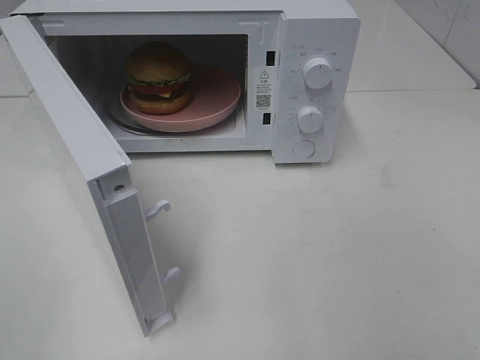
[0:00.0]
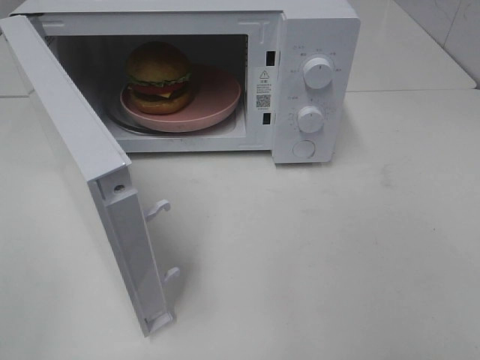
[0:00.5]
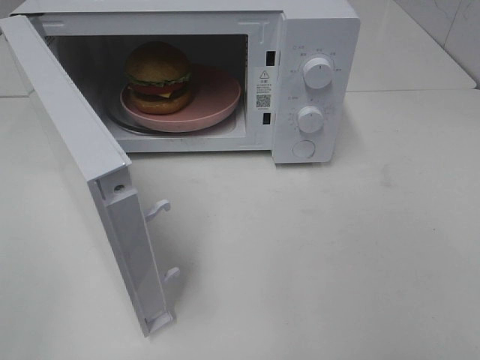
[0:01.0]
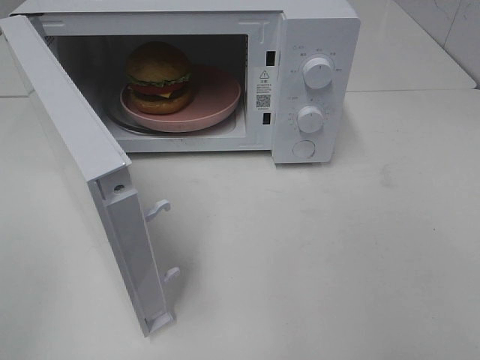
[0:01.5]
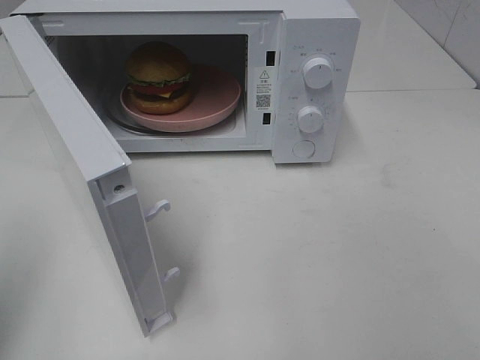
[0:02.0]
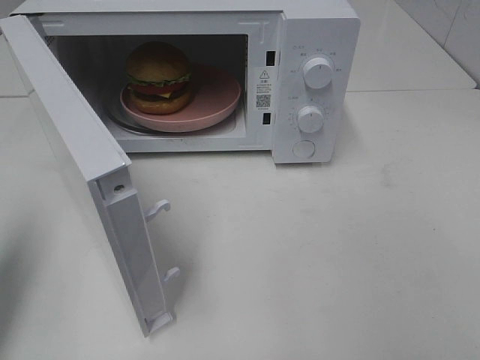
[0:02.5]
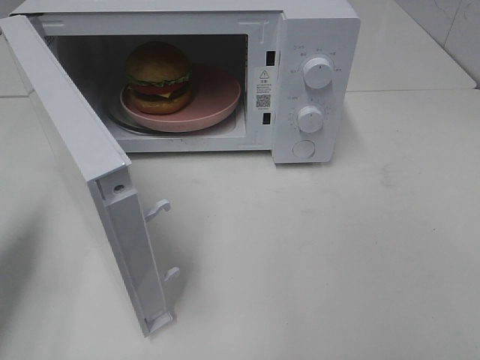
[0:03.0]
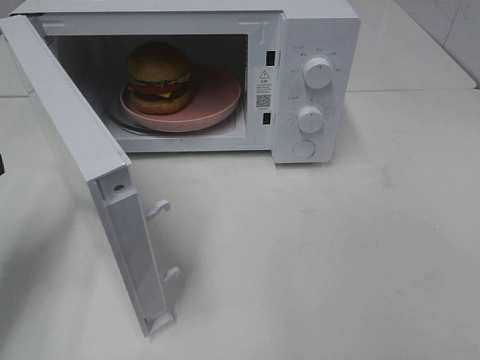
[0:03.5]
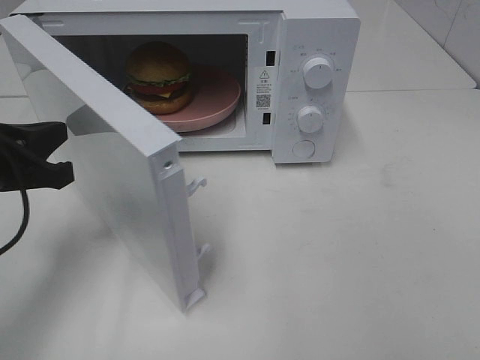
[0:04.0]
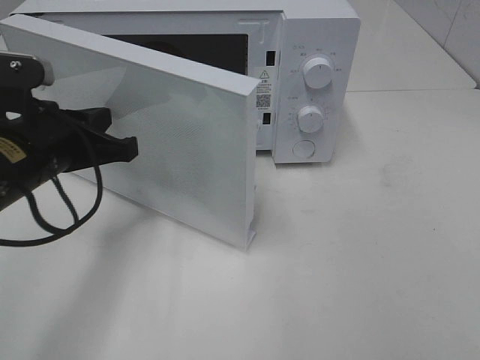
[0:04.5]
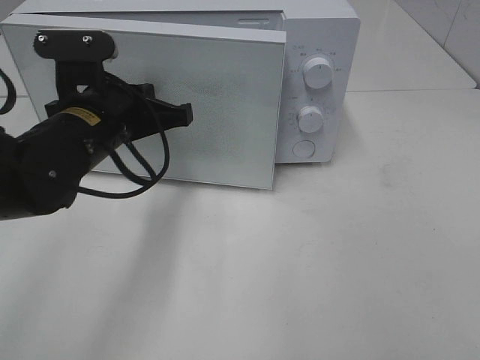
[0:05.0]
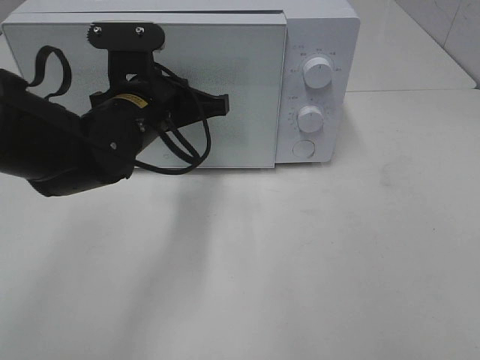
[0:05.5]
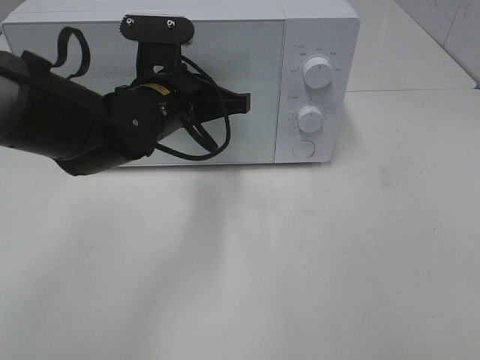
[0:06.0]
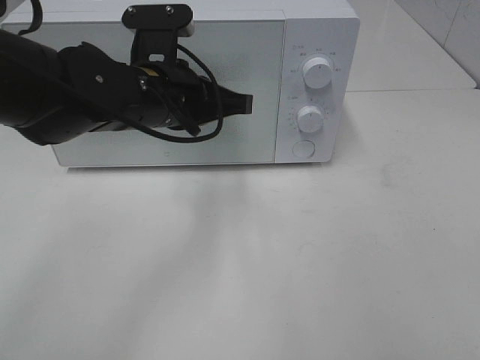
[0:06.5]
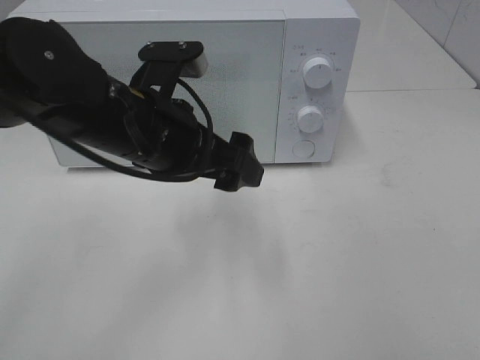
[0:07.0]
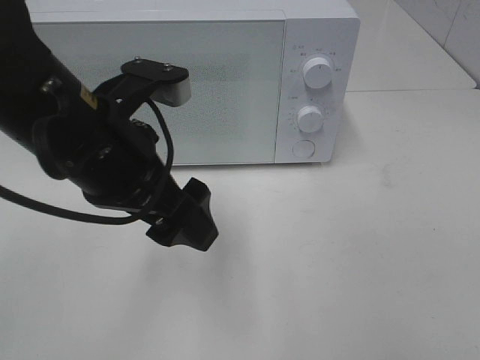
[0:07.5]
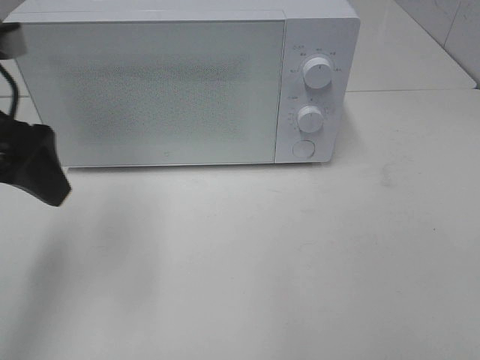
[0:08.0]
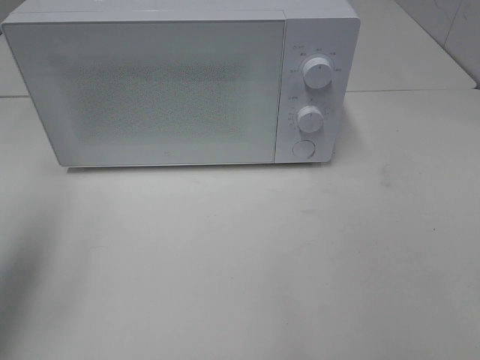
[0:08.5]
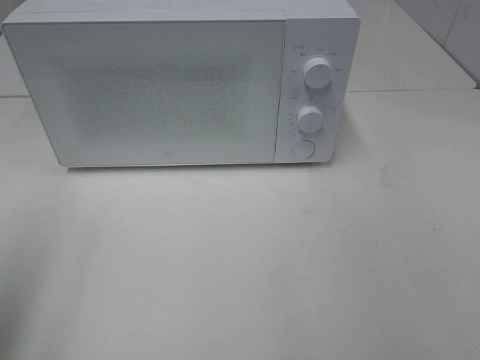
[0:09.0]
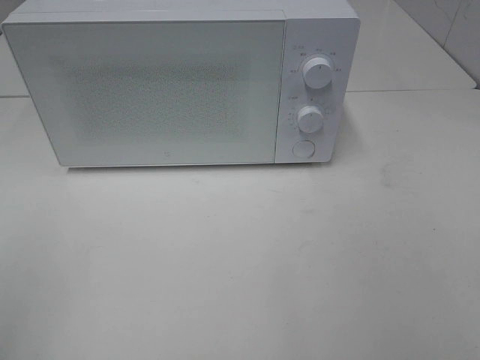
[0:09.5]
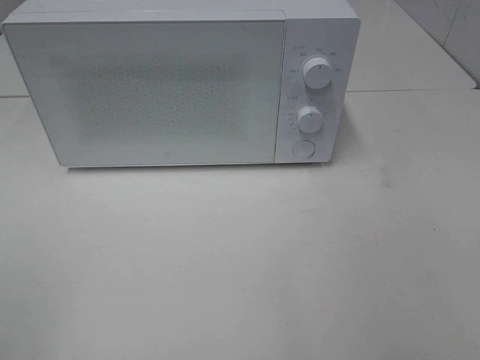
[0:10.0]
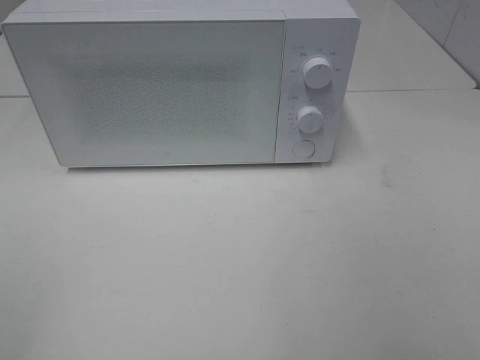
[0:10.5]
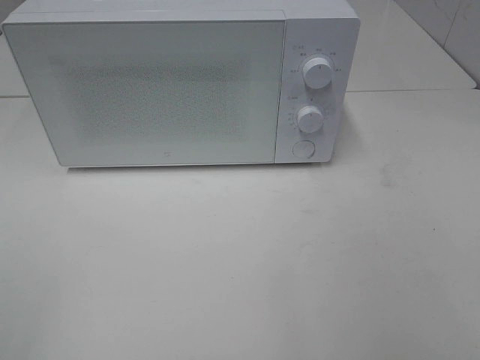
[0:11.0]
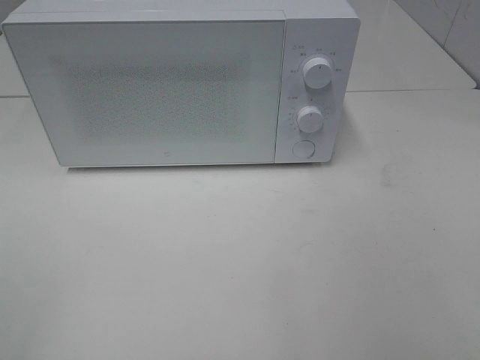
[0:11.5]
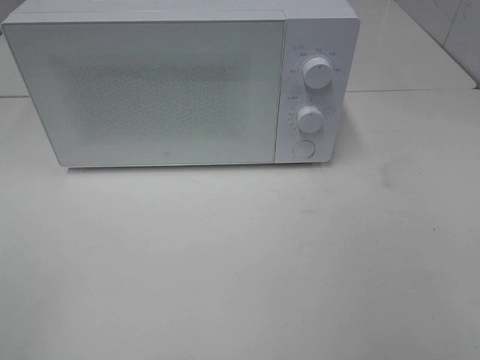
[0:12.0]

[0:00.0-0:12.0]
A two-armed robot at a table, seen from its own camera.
Task of the whole recording: Heat the burger.
Step, 0:00.0 to 0:06.5: Left hand: close the microwave door.
0:00.0 to 0:02.0: The left gripper goes approximately 10 cm forward, and closes up.
0:02.0 to 0:04.0: The left gripper heads forward, downward and to the right, covering about 20 cm.
0:04.0 to 0:06.0: The left gripper goes some 20 cm to the right and forward.
0:06.0 to 0:08.0: The left gripper moves to the left, upward and backward, some 20 cm, and opens up.
0:08.0 to 0:10.0: The left gripper goes some 25 cm backward.

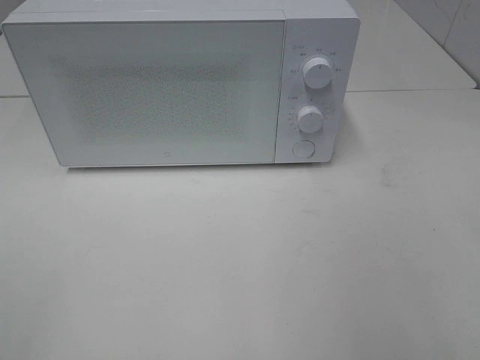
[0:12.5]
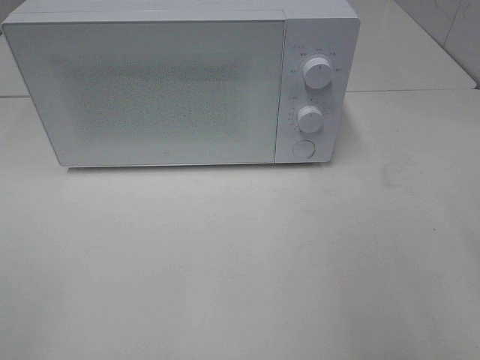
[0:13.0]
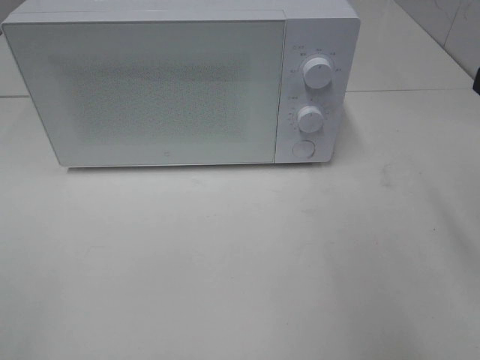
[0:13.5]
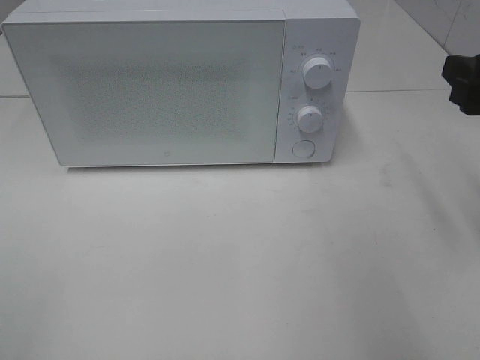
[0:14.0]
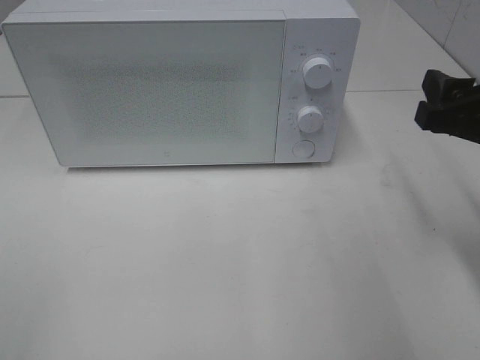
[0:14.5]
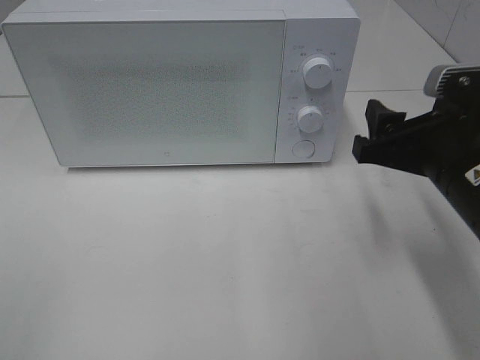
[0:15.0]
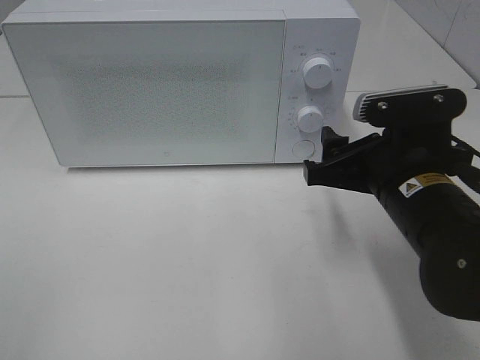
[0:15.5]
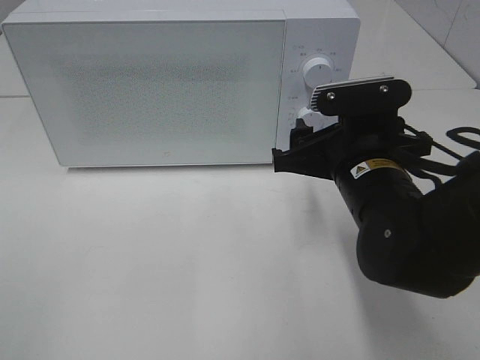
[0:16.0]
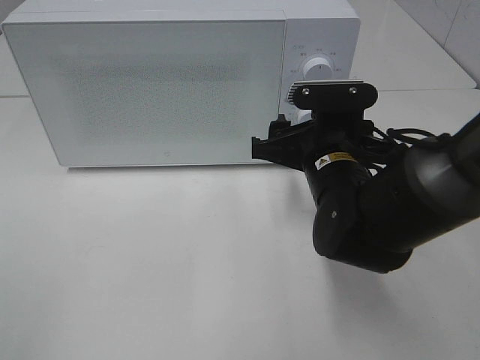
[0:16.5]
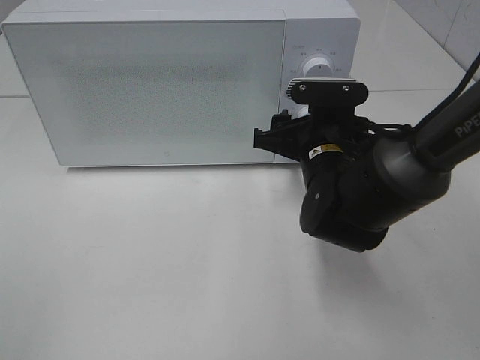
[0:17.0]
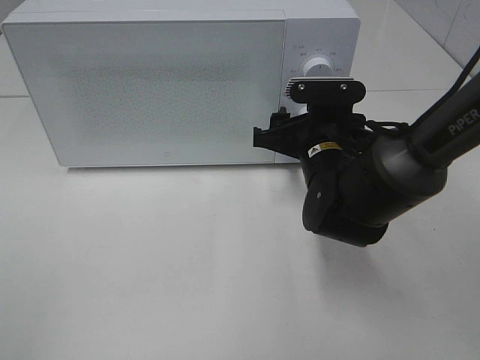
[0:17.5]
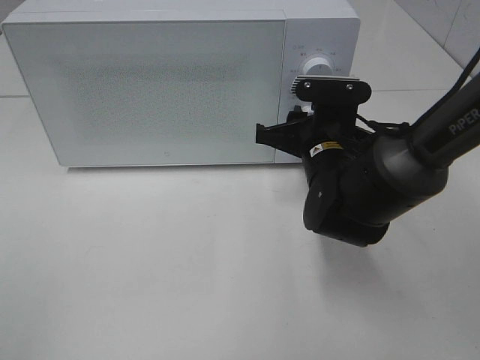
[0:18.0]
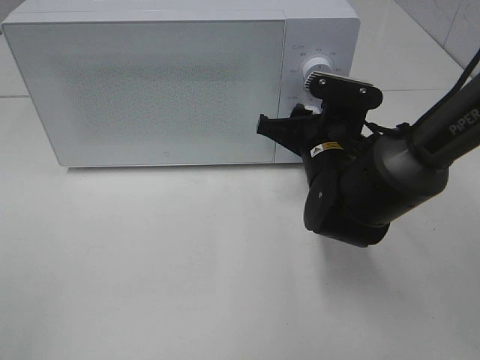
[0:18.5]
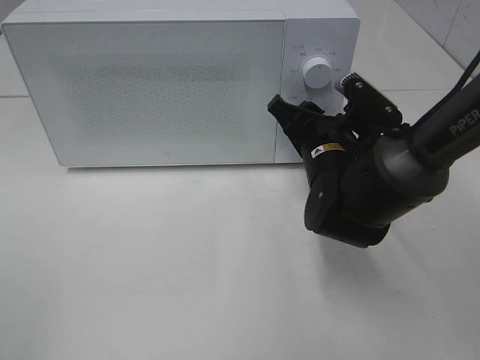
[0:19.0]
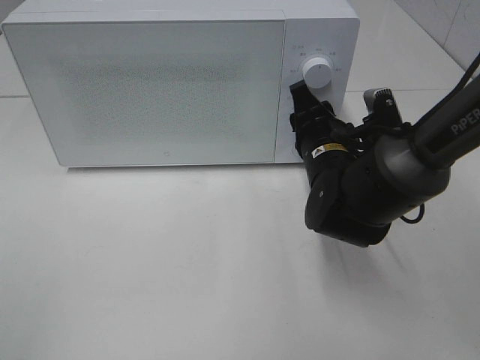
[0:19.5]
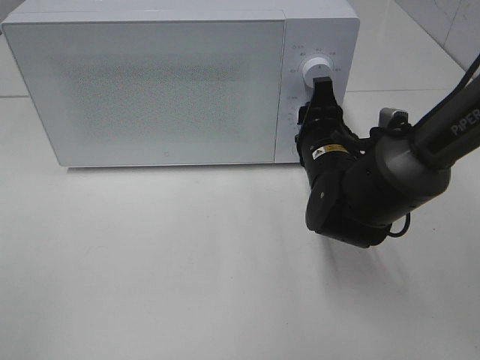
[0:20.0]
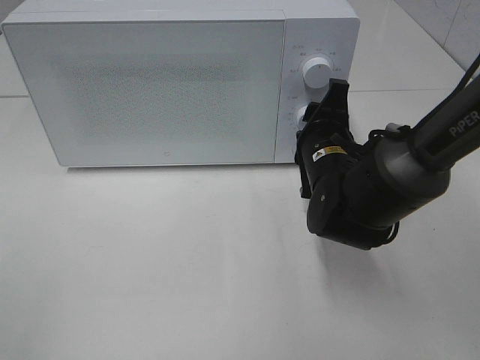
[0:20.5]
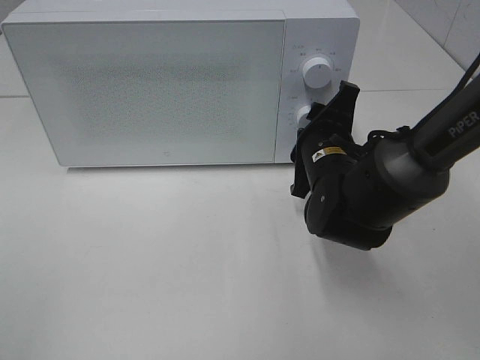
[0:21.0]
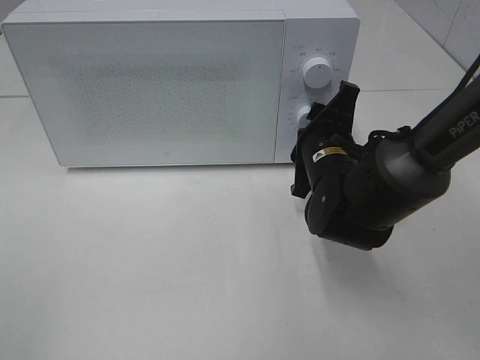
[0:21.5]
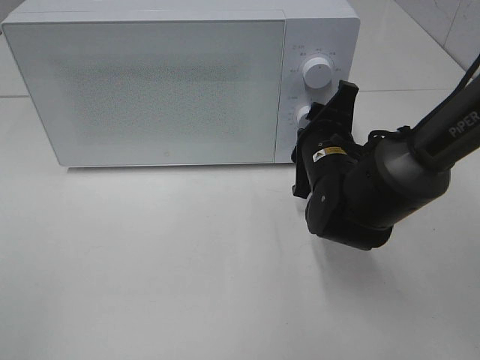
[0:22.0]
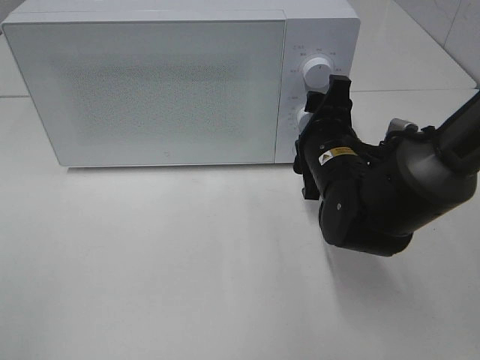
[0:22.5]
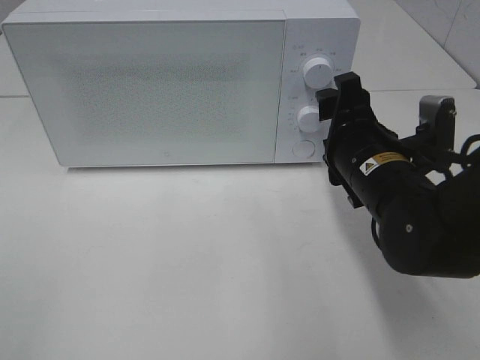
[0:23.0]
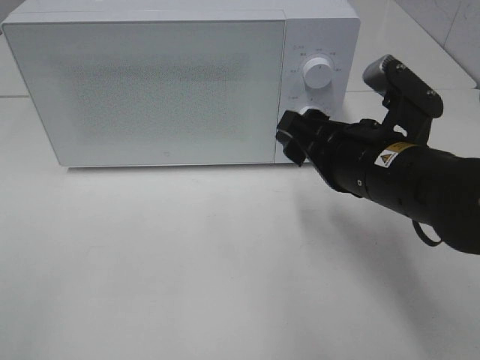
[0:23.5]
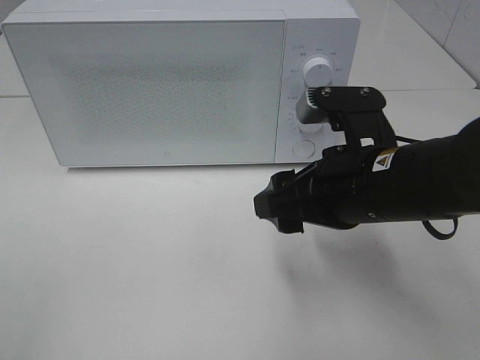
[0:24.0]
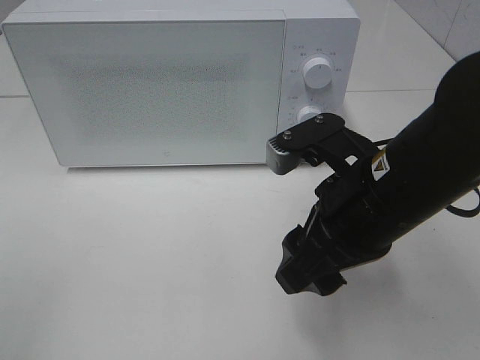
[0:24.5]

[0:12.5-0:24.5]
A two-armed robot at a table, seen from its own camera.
Task of the whole recording: Heat the burger.
Step, 0:12.5 to 0:22.5: Right hand: twist timer button.
0:12.5 to 0:14.5: The right gripper heads forward and downward, covering roughly 20 cm.
0:14.5 to 0:16.5: The right gripper travels to the left, downward and forward by approximately 20 cm.
0:16.5 to 0:18.5: The grippers make only small movements.
0:20.5 to 0:22.5: There are only small adjustments of the grippers.
0:22.5 to 0:24.5: The right gripper is displaced backward and upward by about 15 cm.

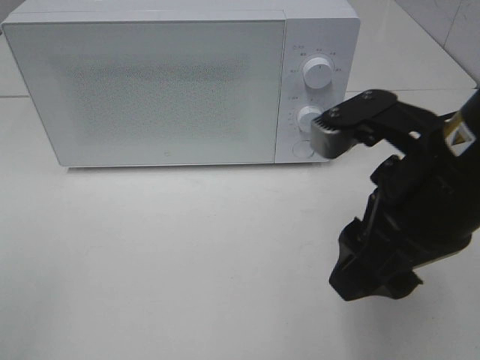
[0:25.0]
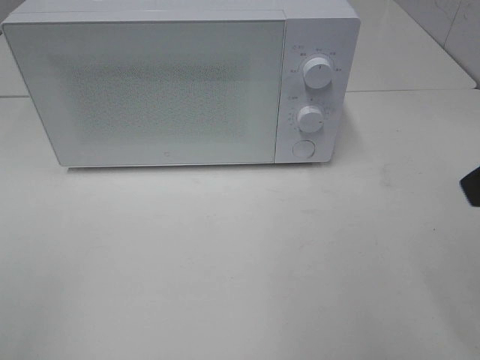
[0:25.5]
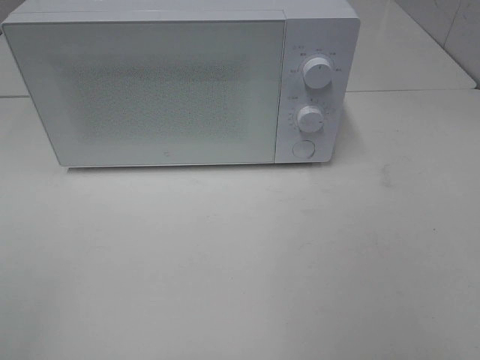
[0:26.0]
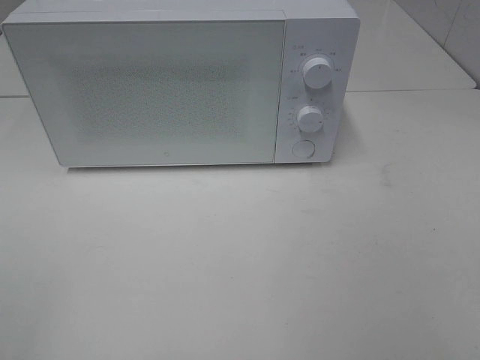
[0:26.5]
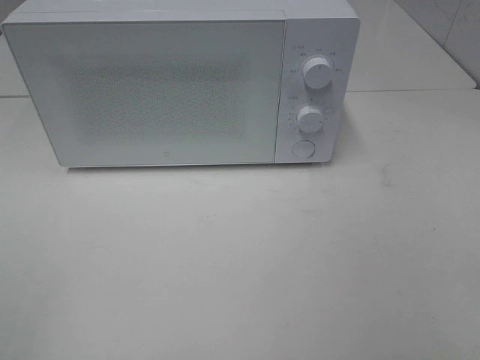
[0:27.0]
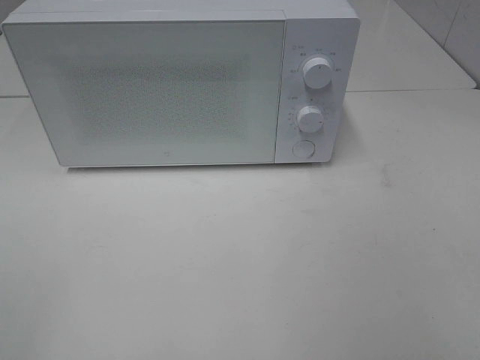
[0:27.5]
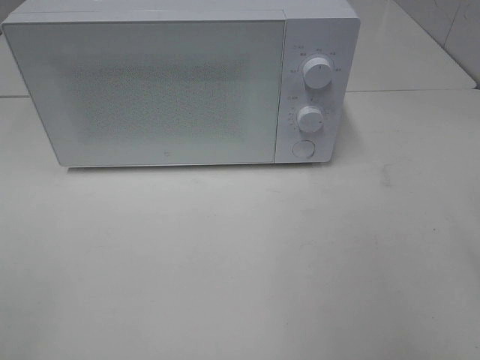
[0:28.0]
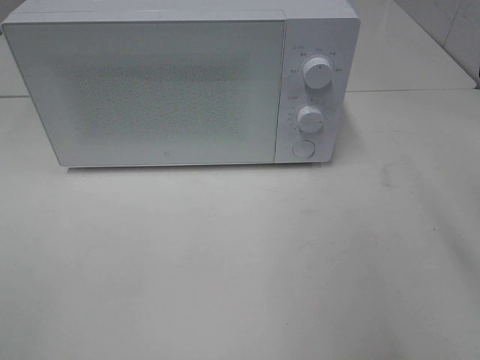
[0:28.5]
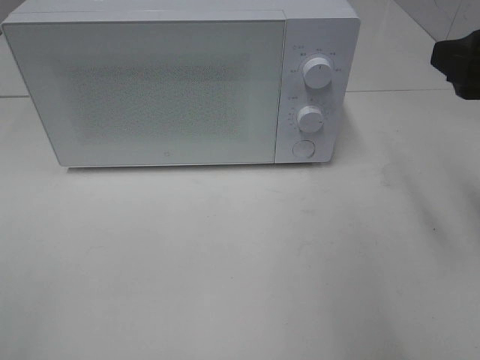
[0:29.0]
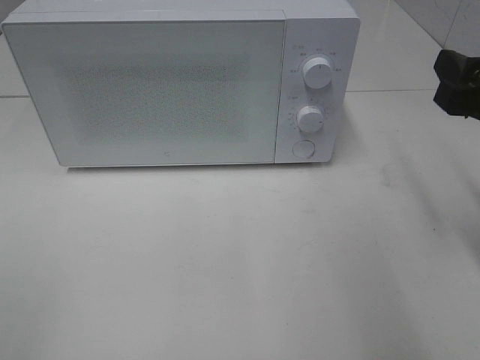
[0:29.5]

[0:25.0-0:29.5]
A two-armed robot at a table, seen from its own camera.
Task of the whole recording: Heat the burger.
0:25.0 to 0:27.0: The right gripper heads backward and to the right, covering roughly 20 cm.
0:27.0 to 0:29.5: The right gripper moves forward, roughly 20 cm.
